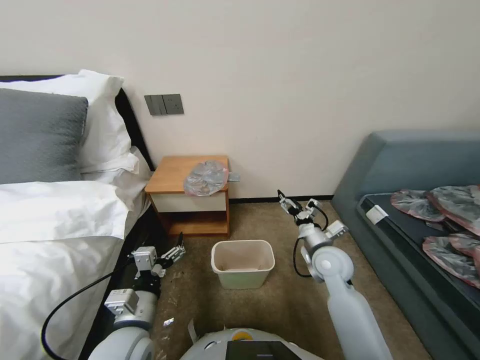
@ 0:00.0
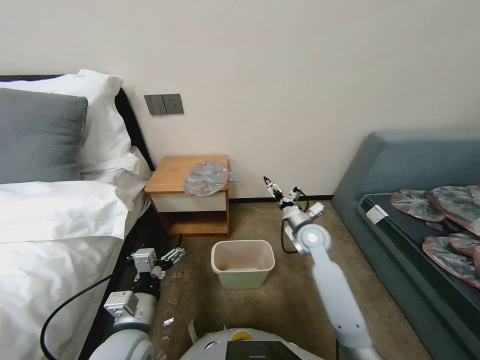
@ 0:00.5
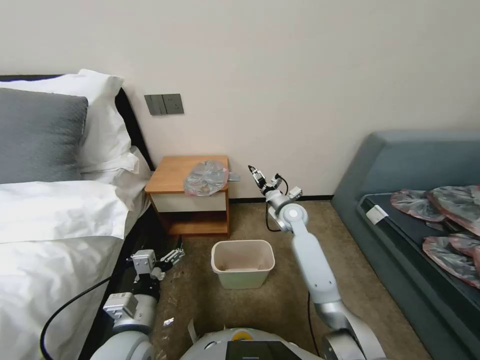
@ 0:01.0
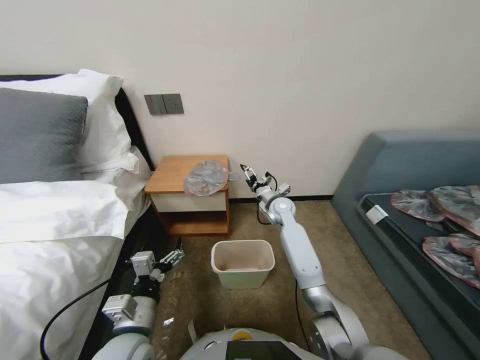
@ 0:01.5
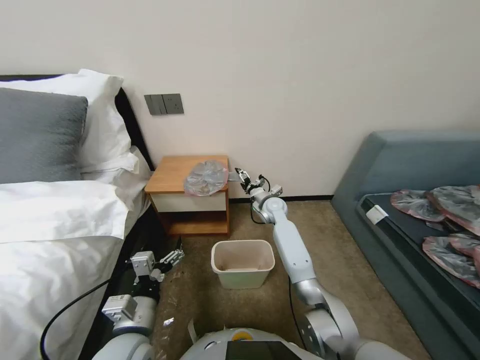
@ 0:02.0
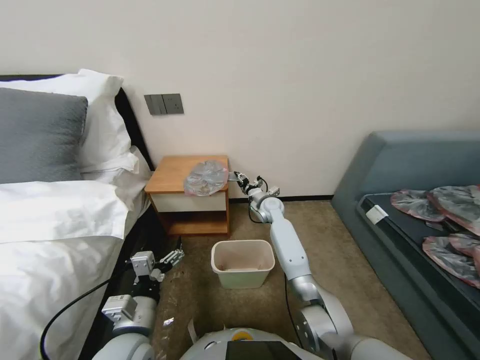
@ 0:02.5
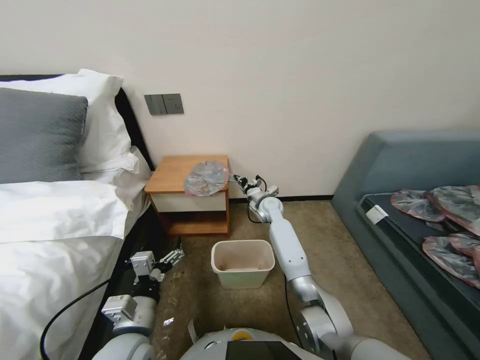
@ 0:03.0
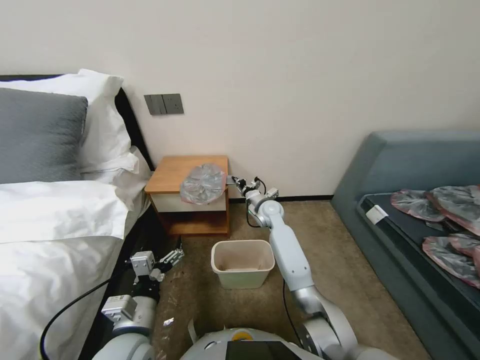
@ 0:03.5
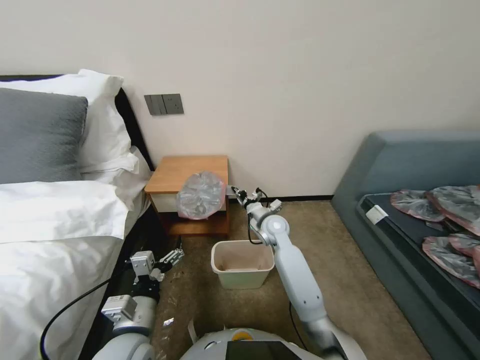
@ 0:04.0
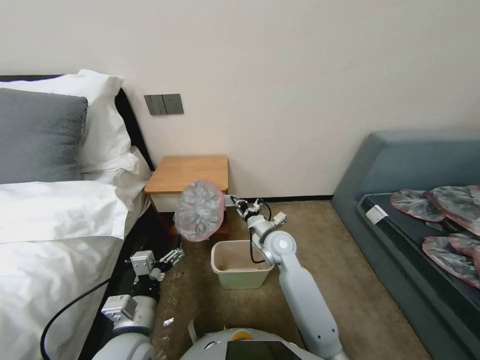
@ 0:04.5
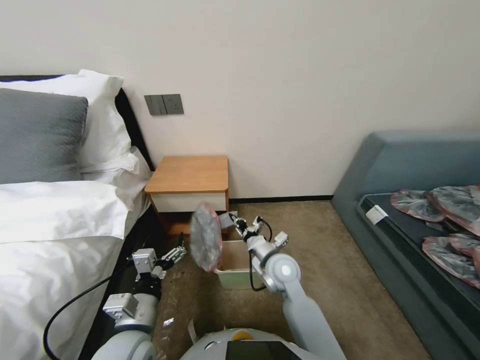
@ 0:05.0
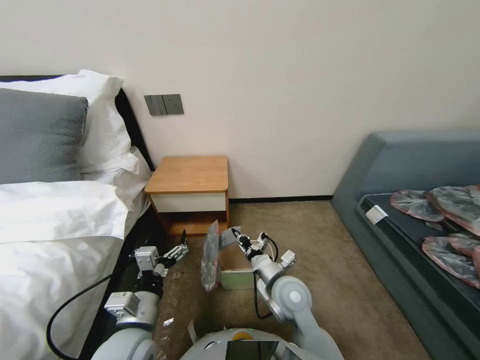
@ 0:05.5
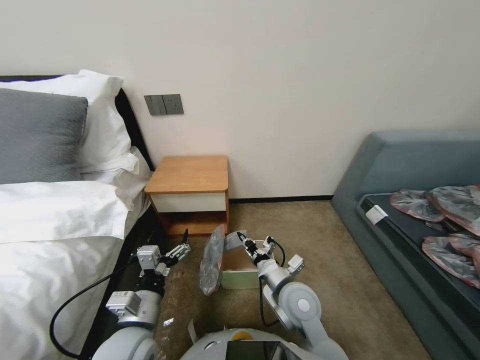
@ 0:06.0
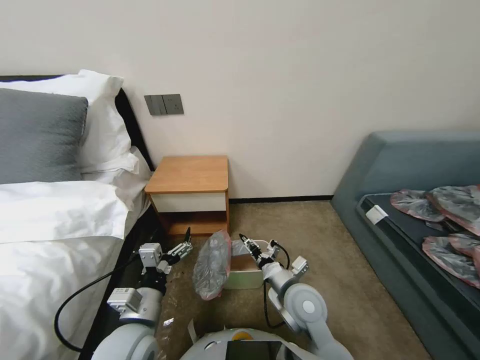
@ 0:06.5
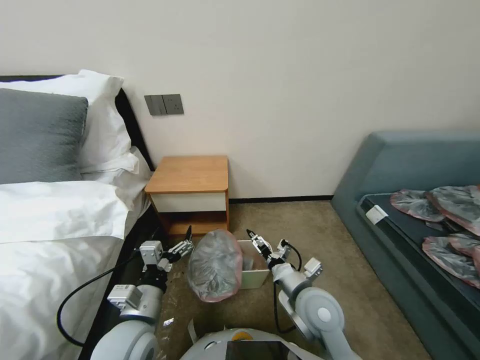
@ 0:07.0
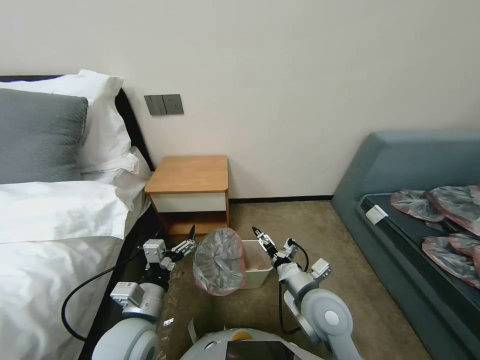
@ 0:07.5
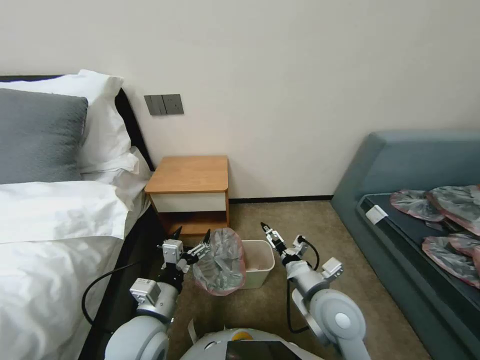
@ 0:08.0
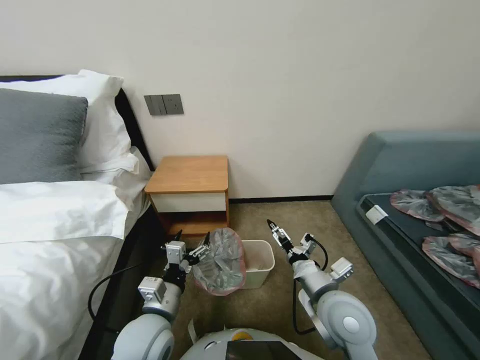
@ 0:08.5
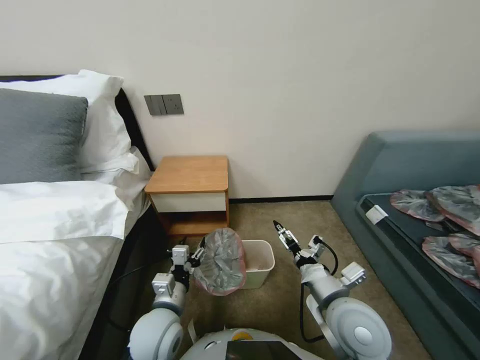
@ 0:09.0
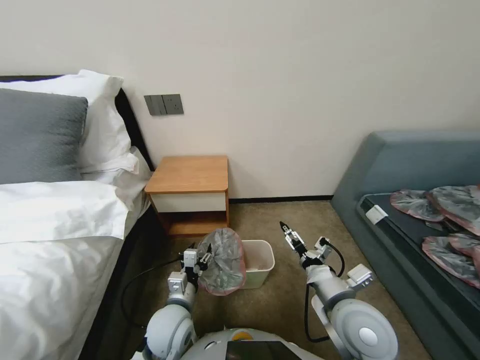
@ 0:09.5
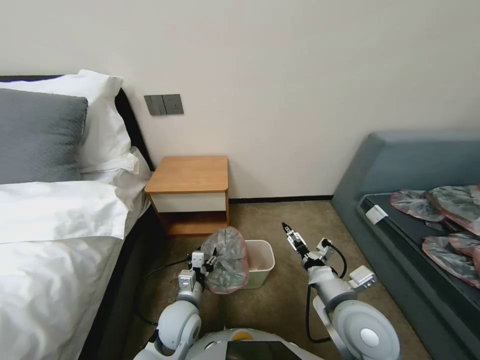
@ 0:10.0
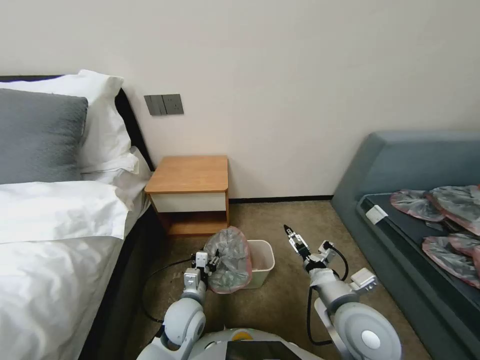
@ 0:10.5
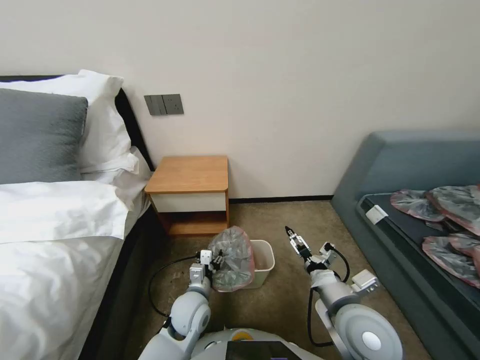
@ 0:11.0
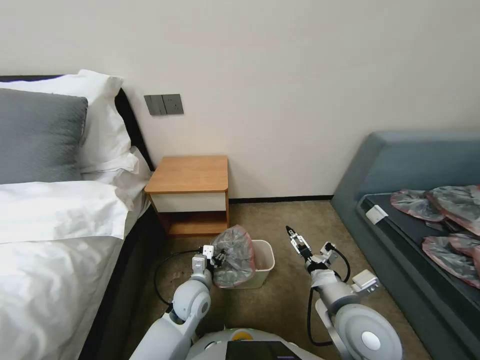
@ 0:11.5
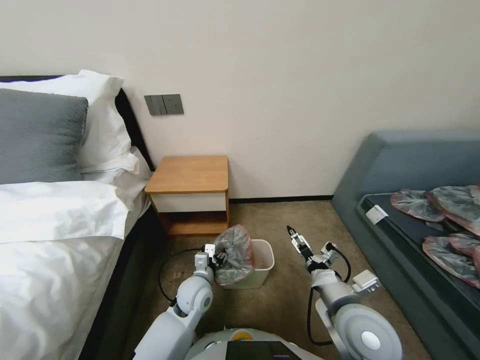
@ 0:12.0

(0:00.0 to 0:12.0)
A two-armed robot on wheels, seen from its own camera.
Task of the whole recording: Pick up the garbage bag from the table and place it over the trash can.
0:00.0 - 0:02.0: The right gripper shifts roughly 25 cm forward and to the left.
0:02.0 - 0:04.0: The right gripper is displaced backward by roughly 5 cm, and closes up.
0:04.0 - 0:06.0: The right gripper is displaced backward by about 20 cm.
0:06.0 - 0:08.0: The right gripper moves to the right, roughly 5 cm, and opens.
0:08.0 - 0:10.0: The left gripper heads downward, covering about 10 cm. Meanwhile the right gripper ends up some 5 cm from where it was.
0:10.0 - 0:12.0: The left gripper goes about 5 cm forward.

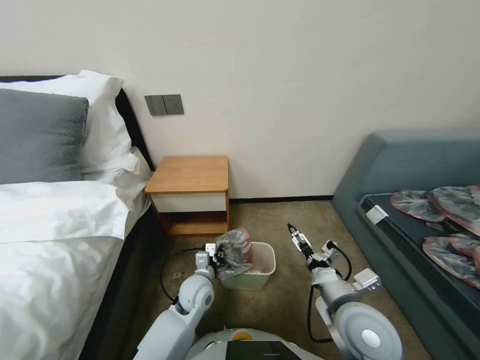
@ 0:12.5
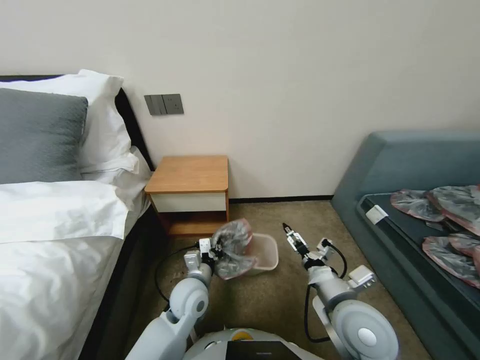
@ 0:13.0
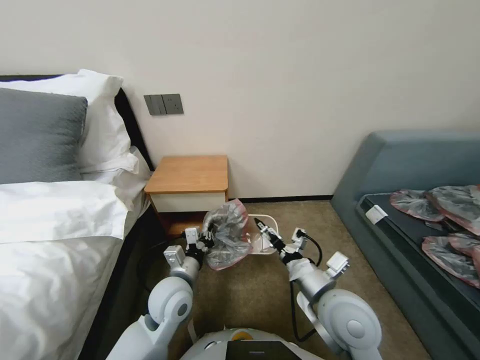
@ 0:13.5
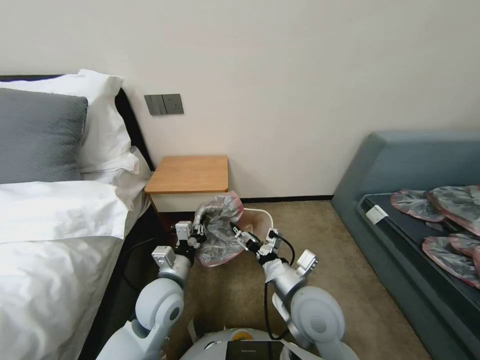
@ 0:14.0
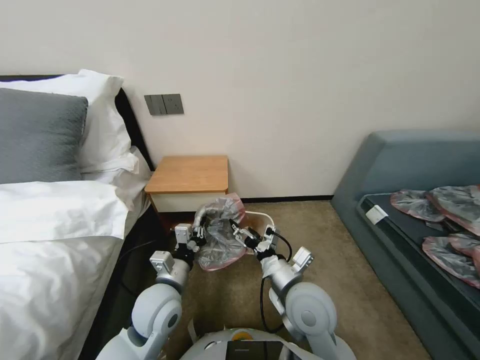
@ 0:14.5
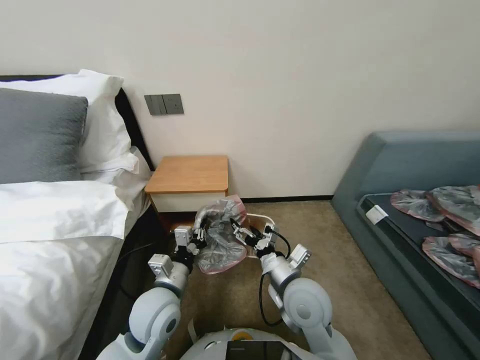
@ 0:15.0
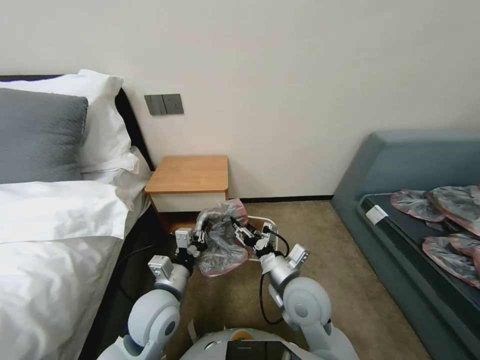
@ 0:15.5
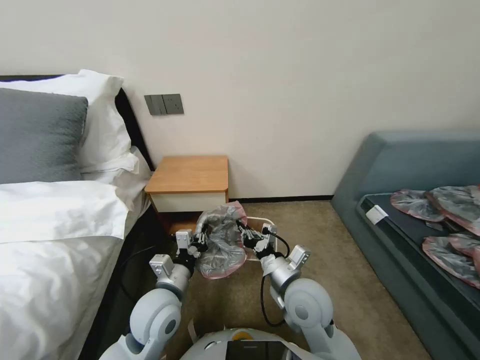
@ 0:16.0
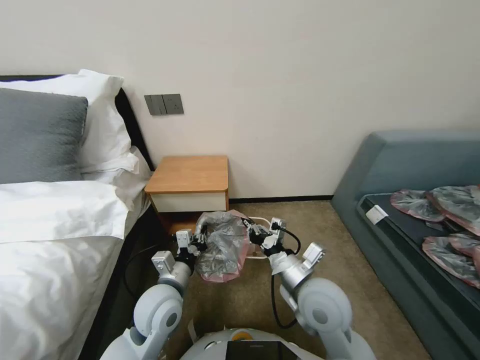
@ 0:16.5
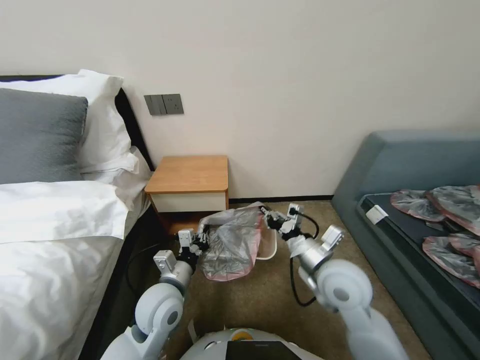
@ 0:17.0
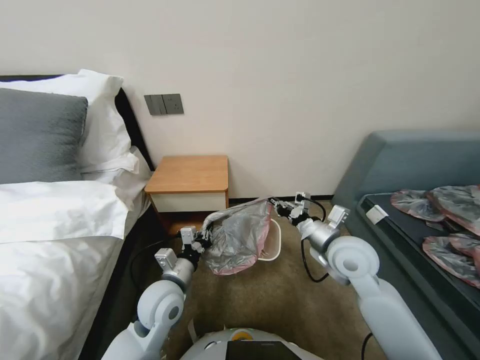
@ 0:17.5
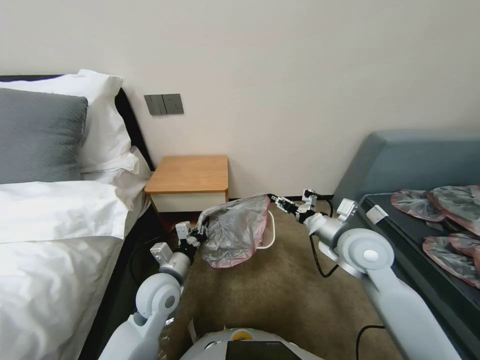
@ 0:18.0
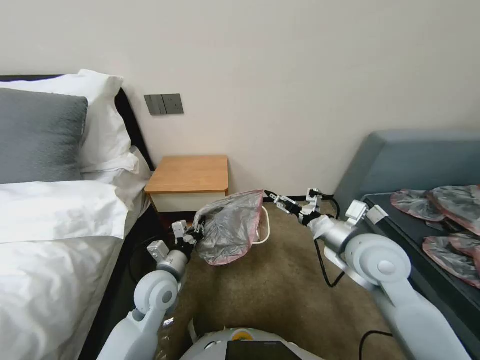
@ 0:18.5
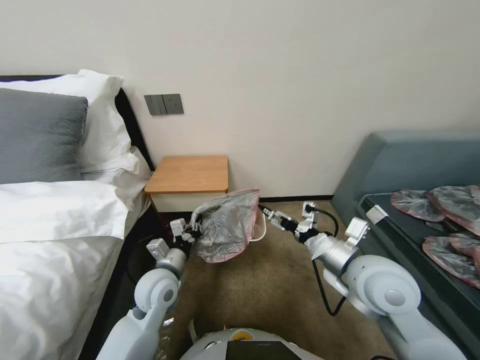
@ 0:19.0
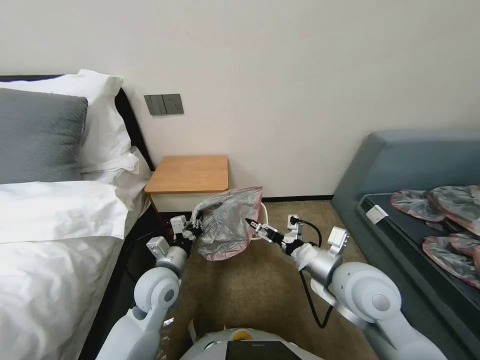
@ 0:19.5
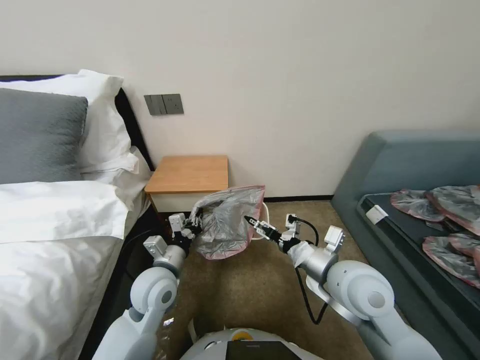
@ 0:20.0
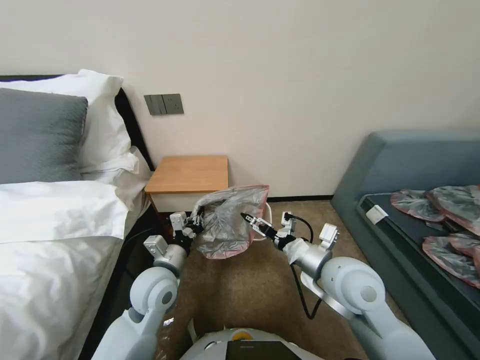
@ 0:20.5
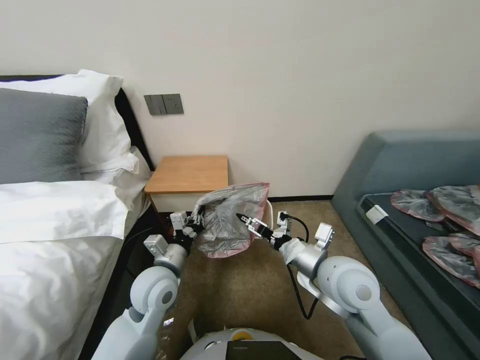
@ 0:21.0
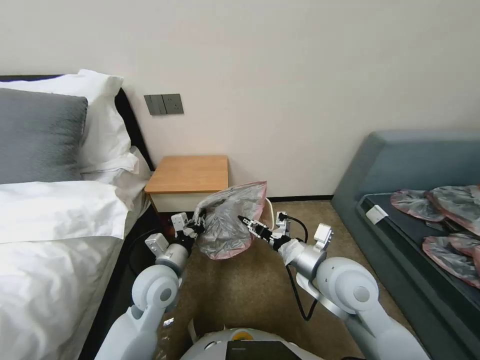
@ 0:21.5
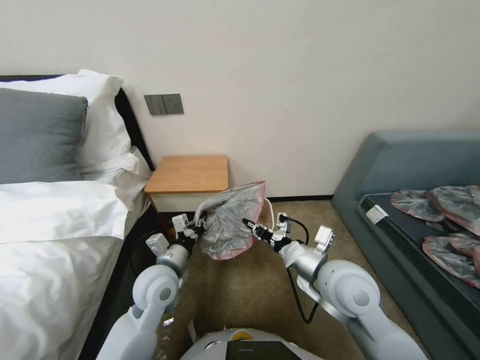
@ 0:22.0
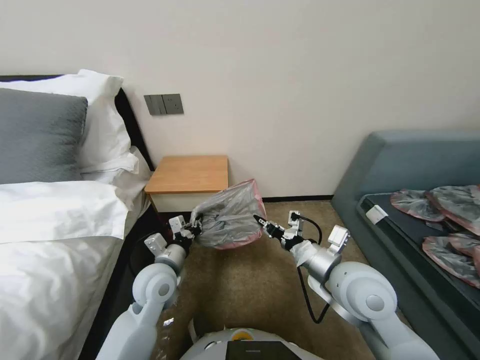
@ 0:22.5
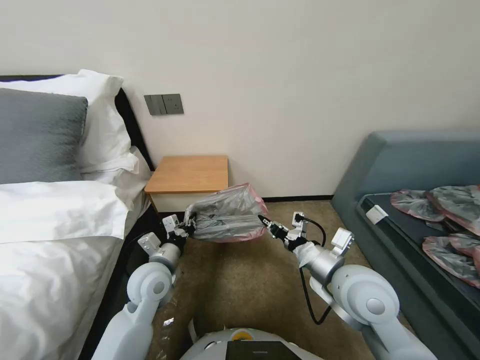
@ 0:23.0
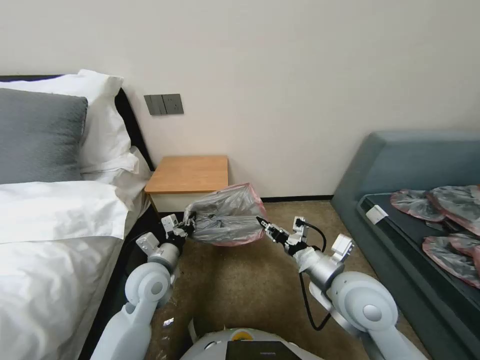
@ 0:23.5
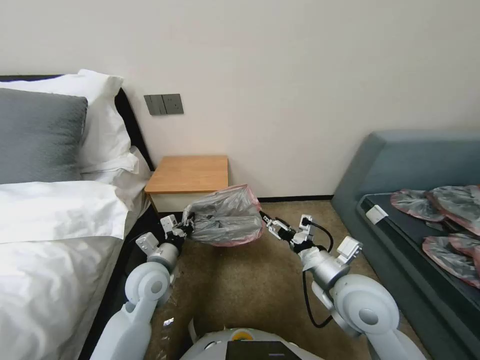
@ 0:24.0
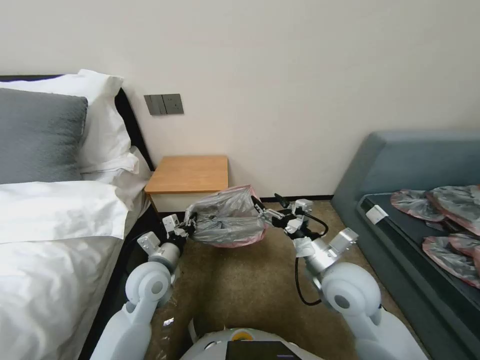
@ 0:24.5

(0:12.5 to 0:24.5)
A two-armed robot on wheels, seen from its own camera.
Task of the whole recording: Pick up the garbage bag from the table and place it over the trash can.
0:12.5 - 0:14.5: The left gripper goes roughly 15 cm upward, to the left and backward, and closes its fingers, while the right gripper is displaced to the left by about 10 cm.
0:14.5 - 0:16.5: The right gripper closes.
0:16.5 - 0:18.5: The right gripper travels to the right, upward and forward by approximately 15 cm, and opens up.
0:18.5 - 0:20.5: The right gripper moves to the left and backward, approximately 10 cm.
0:20.5 - 0:22.5: The right gripper closes its fingers.
0:22.5 - 0:24.5: The right gripper opens up.

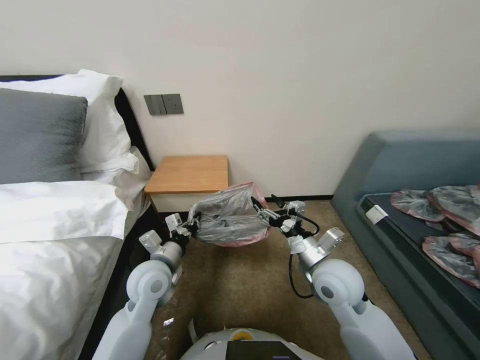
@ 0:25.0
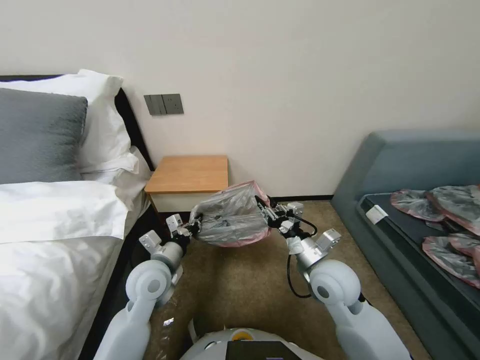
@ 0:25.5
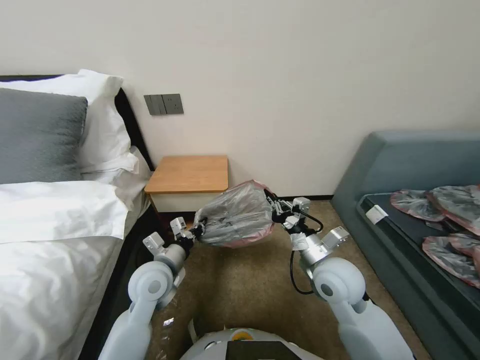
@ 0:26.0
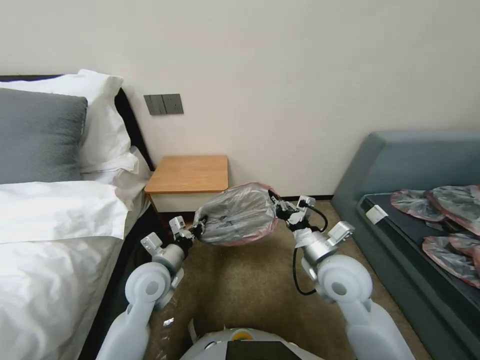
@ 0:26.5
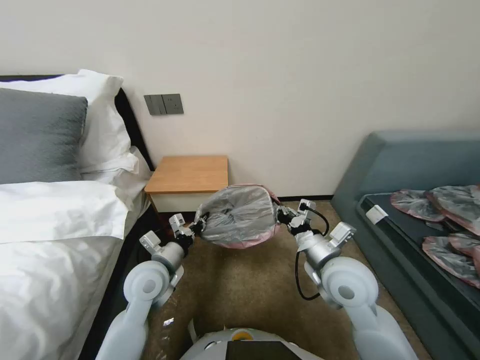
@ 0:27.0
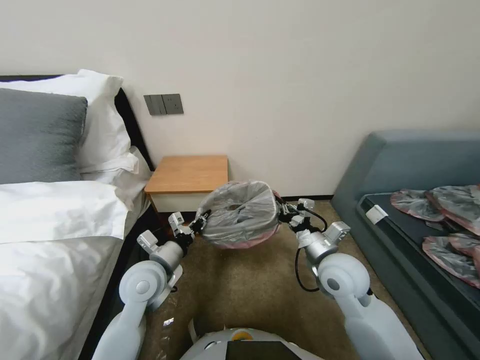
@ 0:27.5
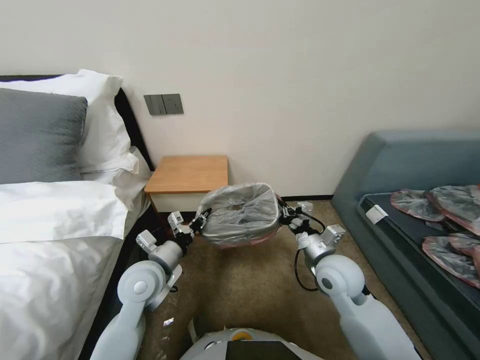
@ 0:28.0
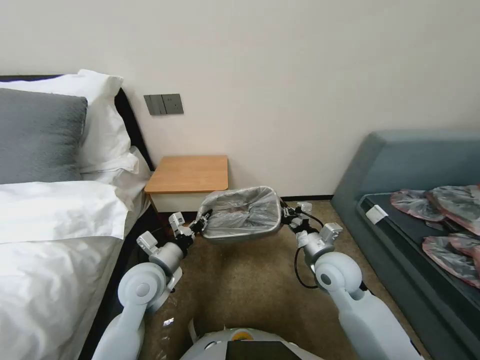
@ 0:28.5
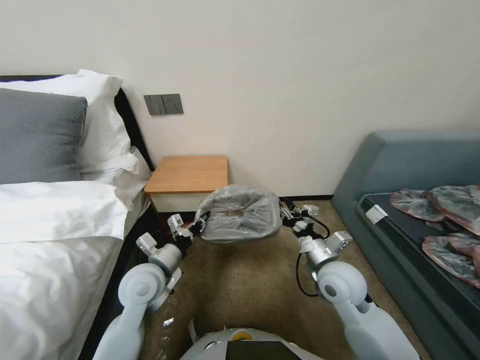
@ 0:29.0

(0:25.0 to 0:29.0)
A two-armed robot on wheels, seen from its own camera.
Task of the whole recording: Pick up the garbage bag from the table and place it over the trash can.
0:25.0 - 0:27.0: The right gripper closes up.
0:27.0 - 0:29.0: The right gripper ends up roughly 5 cm from where it was, and opens.
